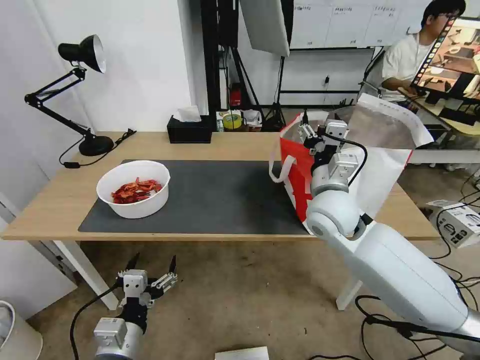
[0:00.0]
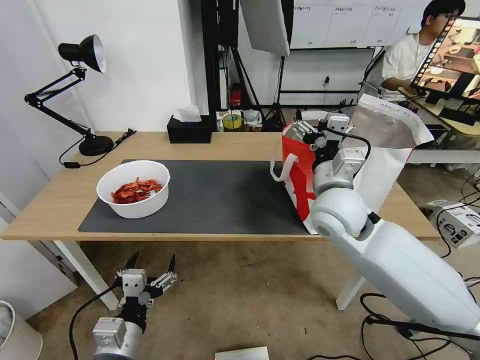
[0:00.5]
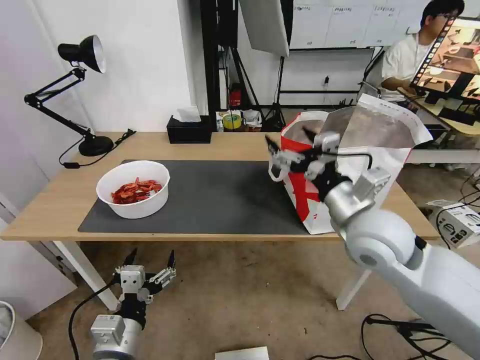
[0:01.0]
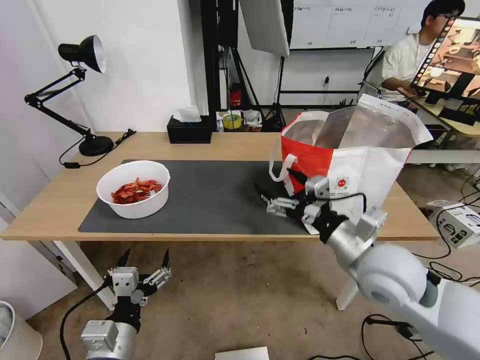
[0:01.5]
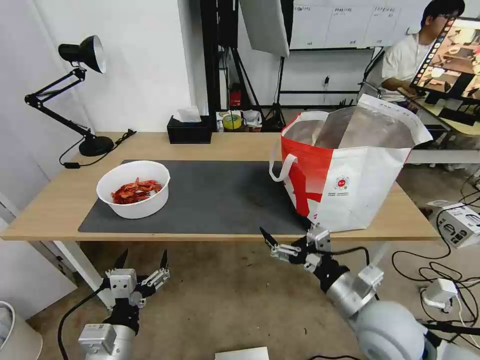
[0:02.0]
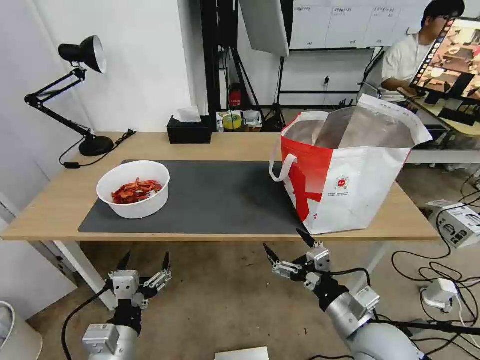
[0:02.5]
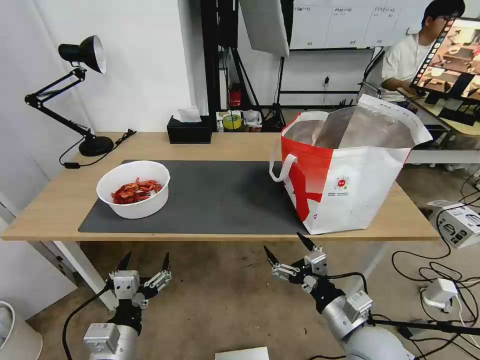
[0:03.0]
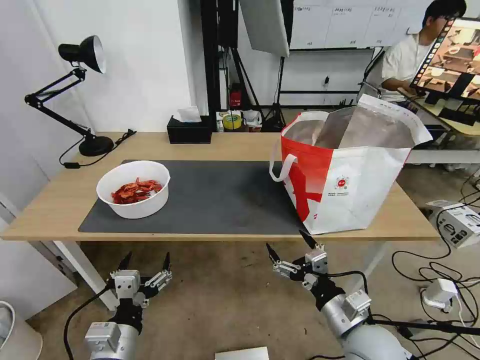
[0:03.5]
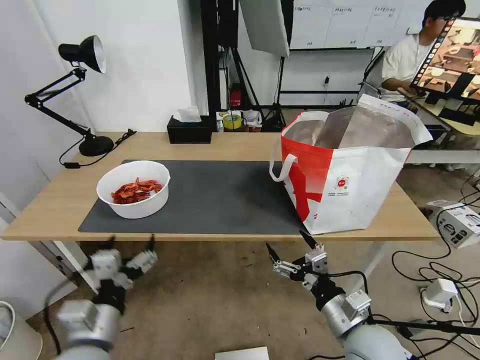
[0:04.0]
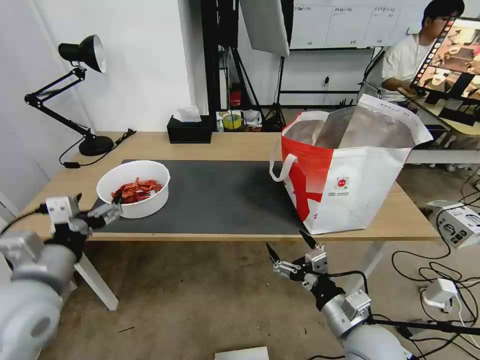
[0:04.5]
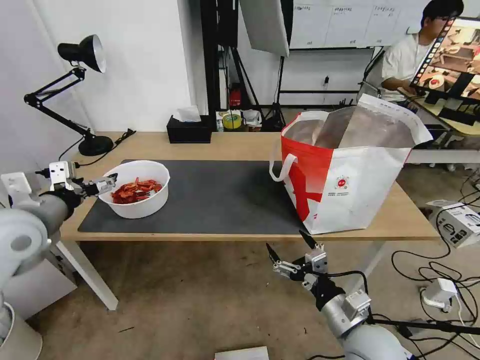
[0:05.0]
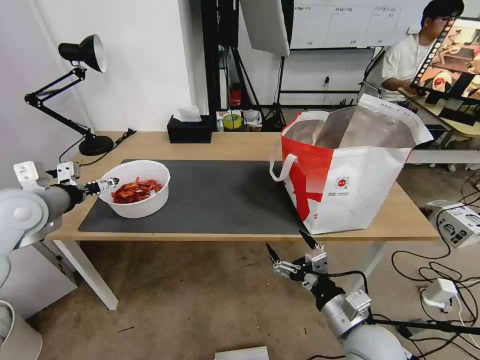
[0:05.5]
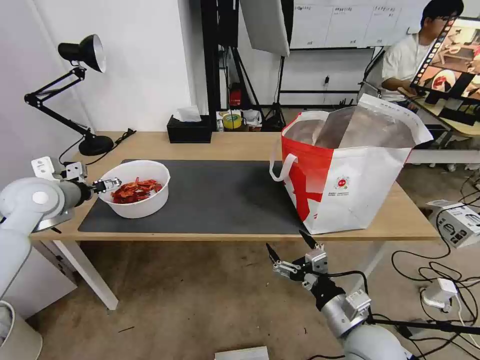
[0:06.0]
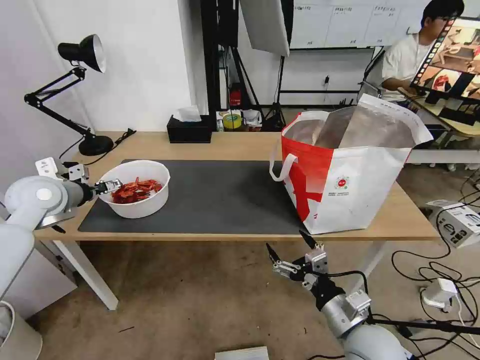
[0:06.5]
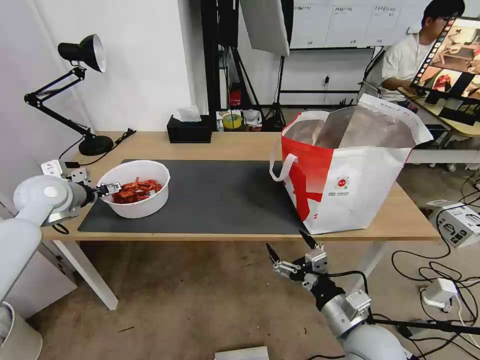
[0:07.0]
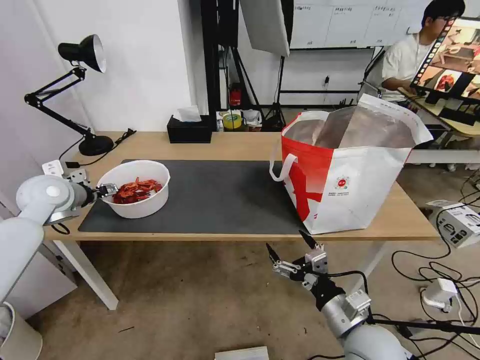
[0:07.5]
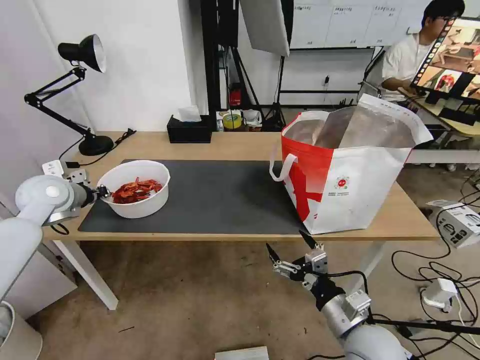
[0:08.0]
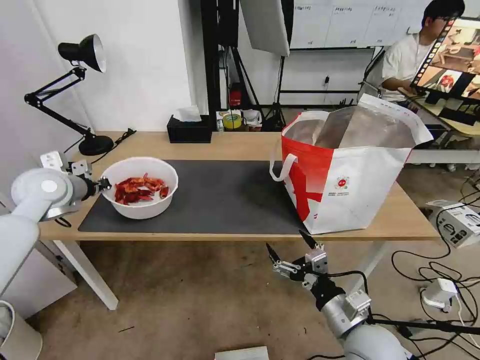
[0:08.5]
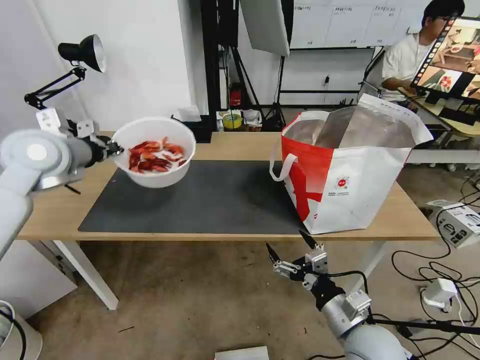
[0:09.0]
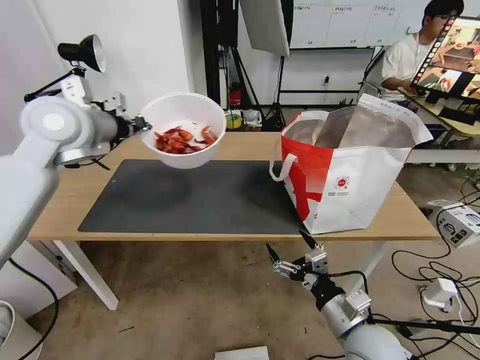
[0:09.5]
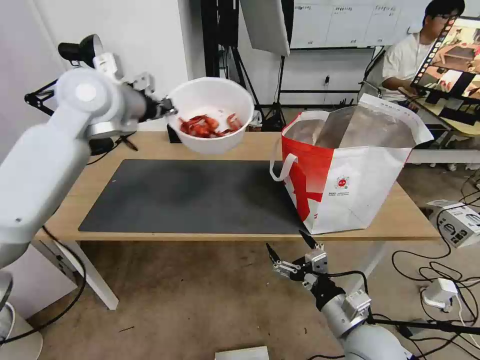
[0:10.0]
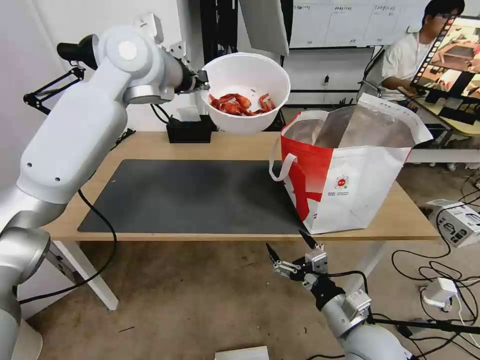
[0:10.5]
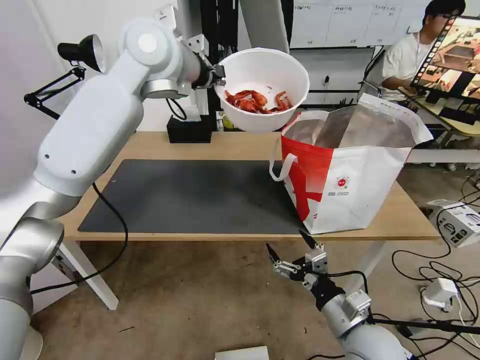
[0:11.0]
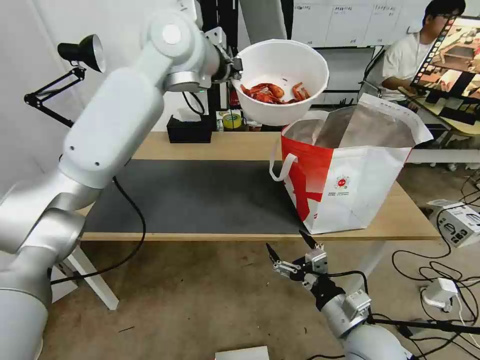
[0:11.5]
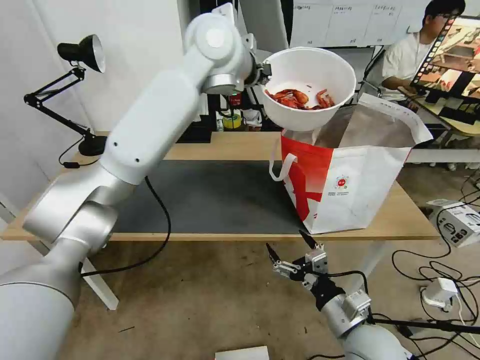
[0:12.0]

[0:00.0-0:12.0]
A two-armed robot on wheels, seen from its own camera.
Task of the whole recording: Pick up the trash from the table and place it into the takeout bag.
0:00.0 to 0:02.0: The right gripper travels backward and downward by approximately 20 cm.
0:02.0 to 0:04.0: The right gripper moves downward, some 5 cm.
0:04.0 to 0:06.0: The left gripper travels forward, to the left and upward by about 35 cm.
0:06.0 to 0:08.0: The left gripper closes up.
0:08.0 to 0:10.0: The left gripper moves upward and to the right, roughly 25 cm.
0:10.0 to 0:12.0: The left gripper travels to the right by about 20 cm.

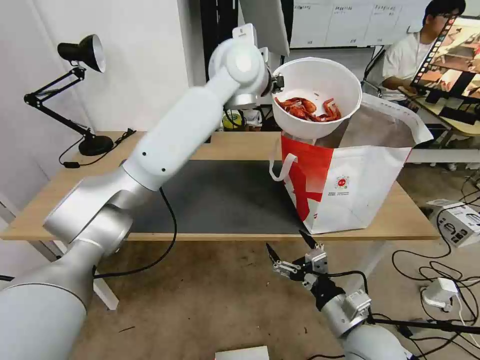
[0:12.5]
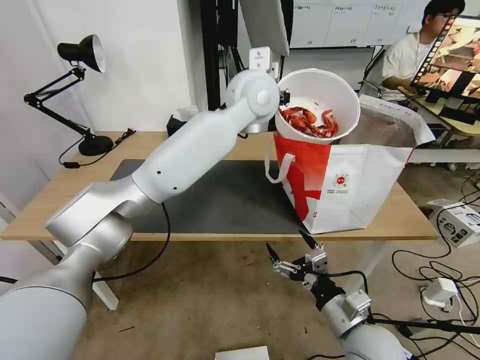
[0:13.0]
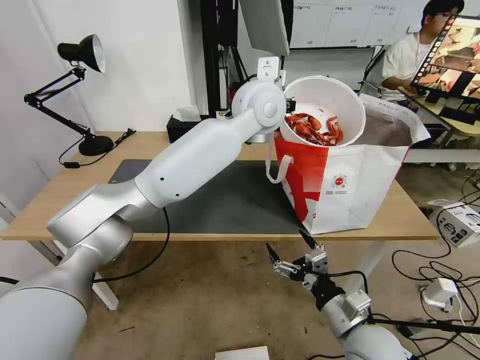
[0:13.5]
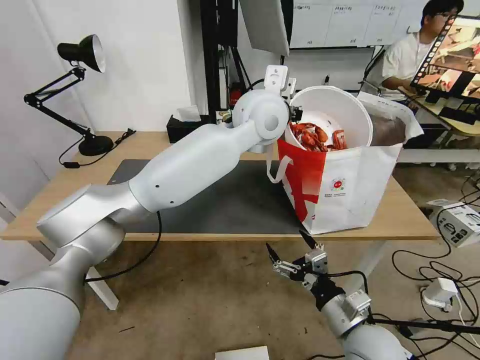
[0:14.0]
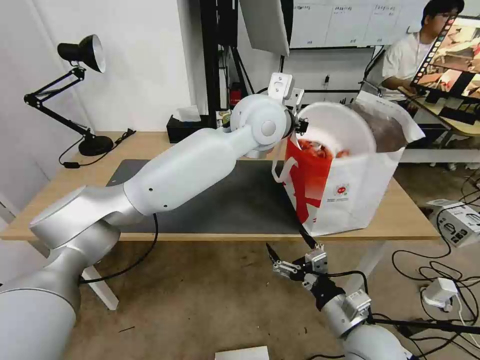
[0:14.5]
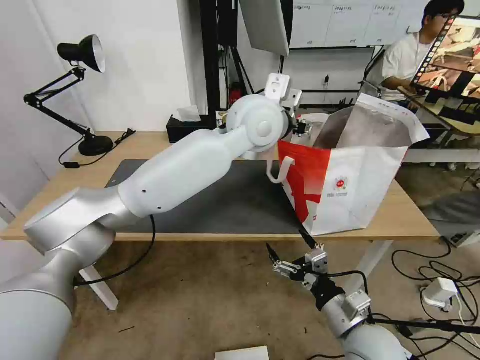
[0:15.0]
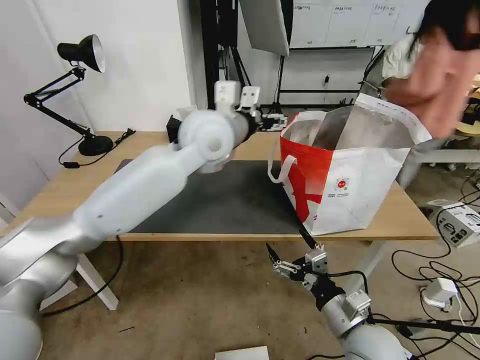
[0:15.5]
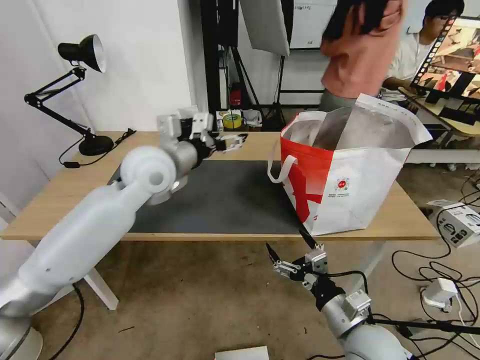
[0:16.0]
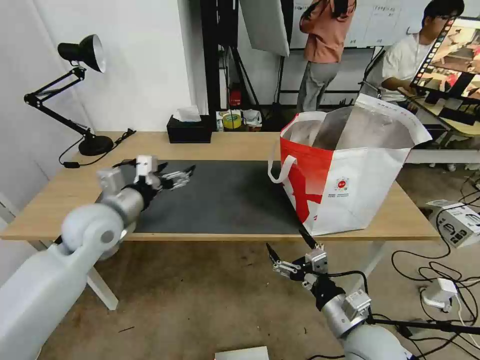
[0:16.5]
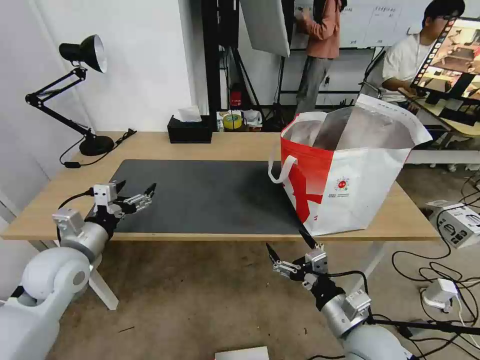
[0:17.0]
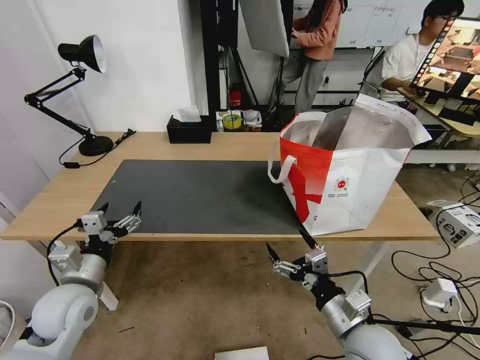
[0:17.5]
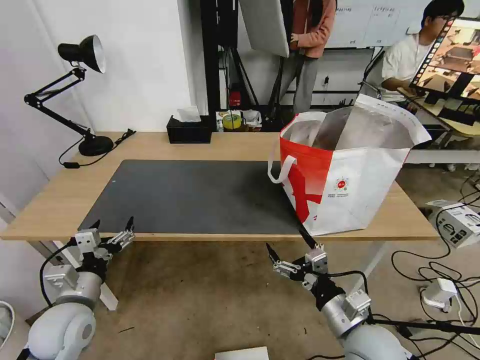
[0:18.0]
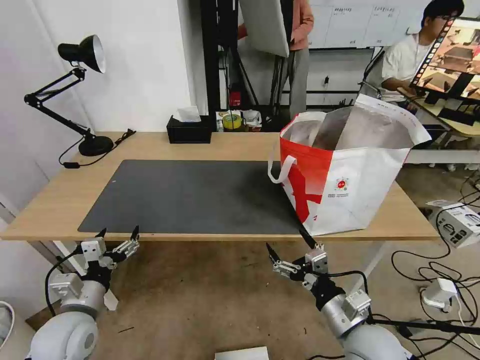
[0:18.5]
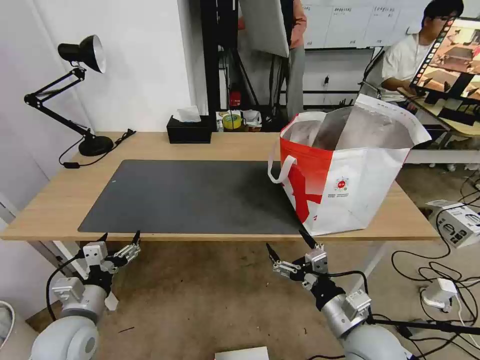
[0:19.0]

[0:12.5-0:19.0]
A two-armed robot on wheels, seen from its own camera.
Task of the whole recording: Pick up the trash from the table and place it into the takeout bag.
0:12.5 to 0:14.5: The left gripper travels downward and backward by approximately 10 cm.
0:14.5 to 0:17.0: The left gripper goes about 50 cm to the left, downward and backward, and opens.
0:17.0 to 0:19.0: The left gripper is displaced downward and backward by approximately 15 cm.

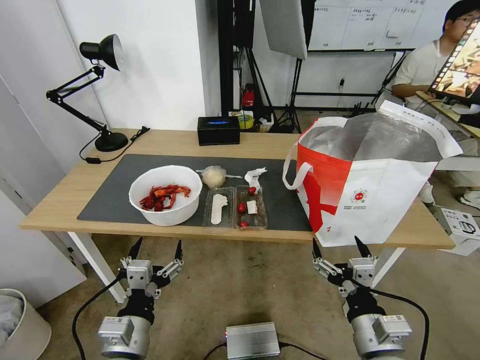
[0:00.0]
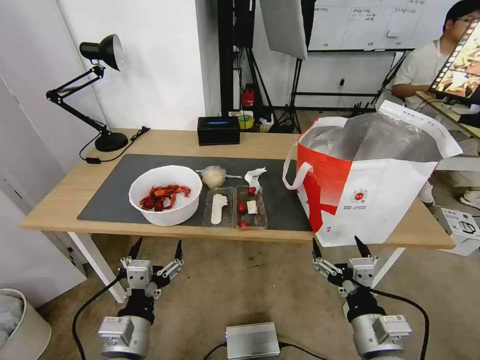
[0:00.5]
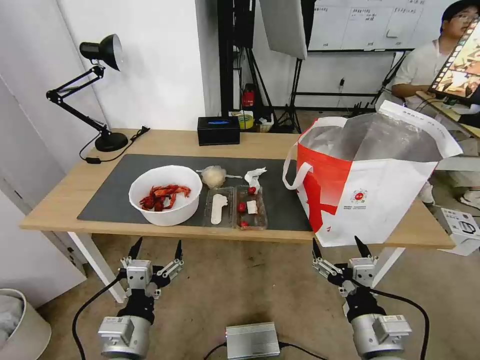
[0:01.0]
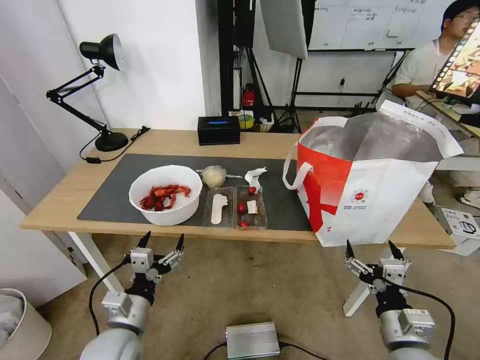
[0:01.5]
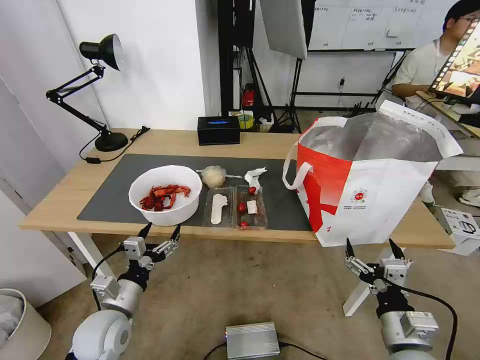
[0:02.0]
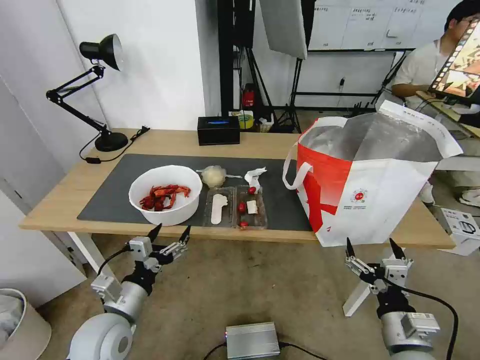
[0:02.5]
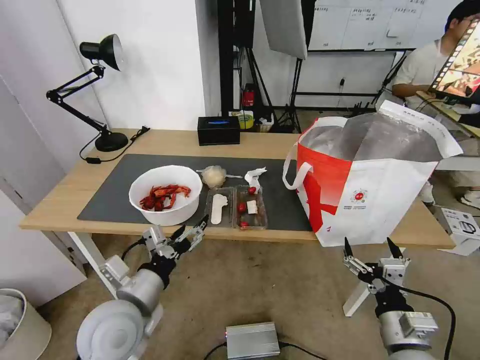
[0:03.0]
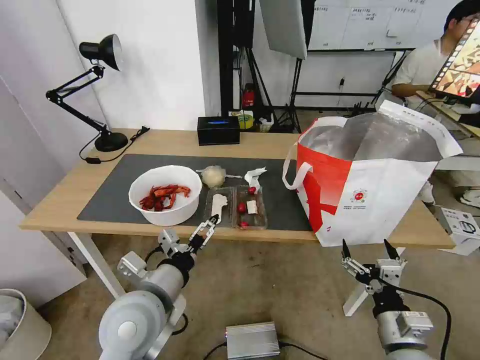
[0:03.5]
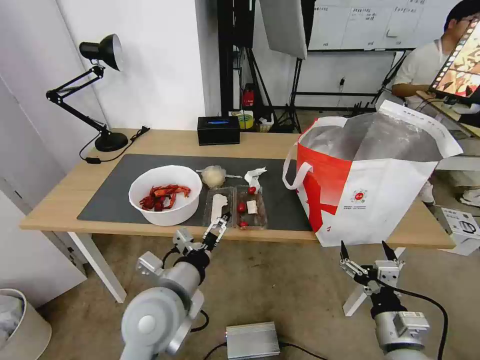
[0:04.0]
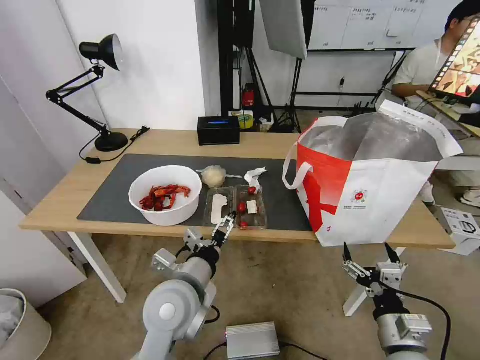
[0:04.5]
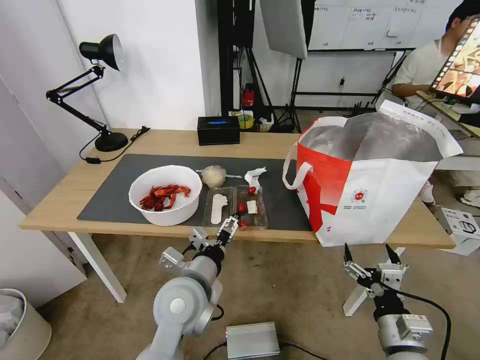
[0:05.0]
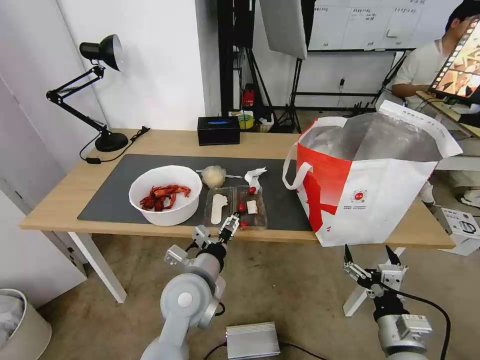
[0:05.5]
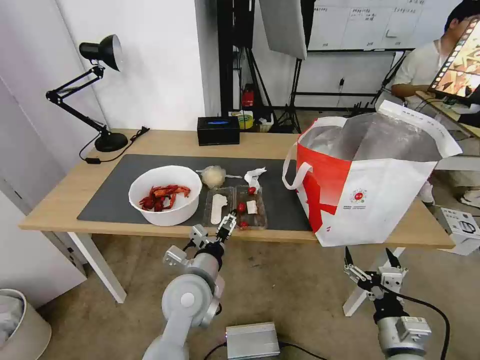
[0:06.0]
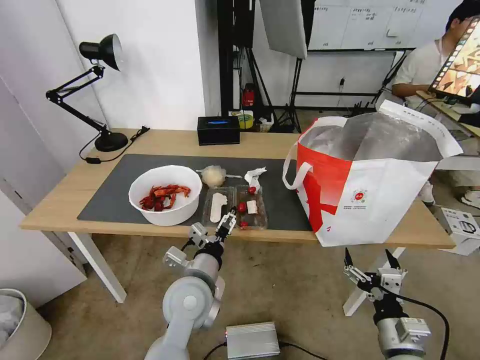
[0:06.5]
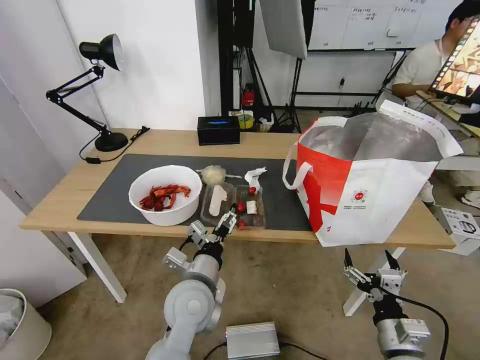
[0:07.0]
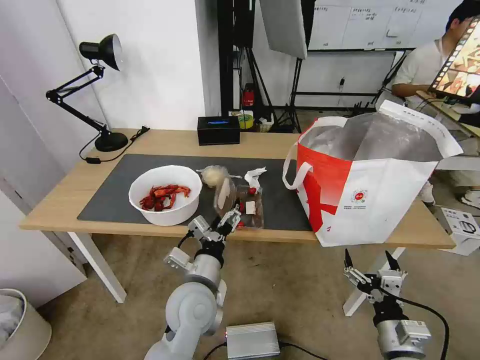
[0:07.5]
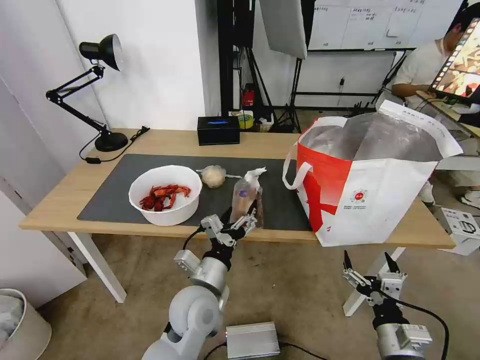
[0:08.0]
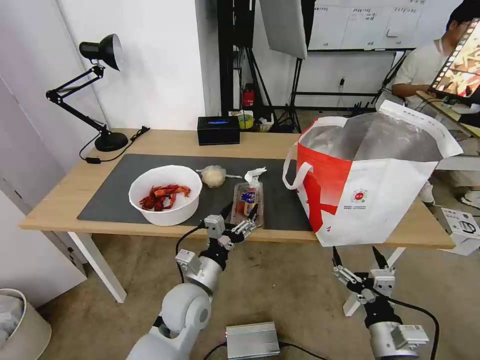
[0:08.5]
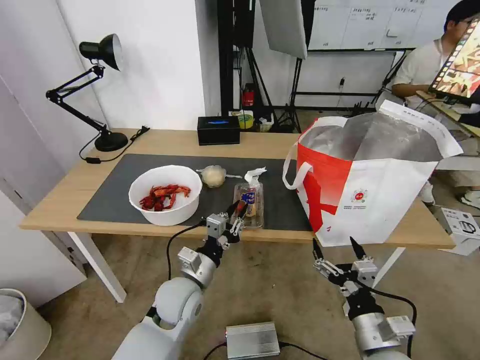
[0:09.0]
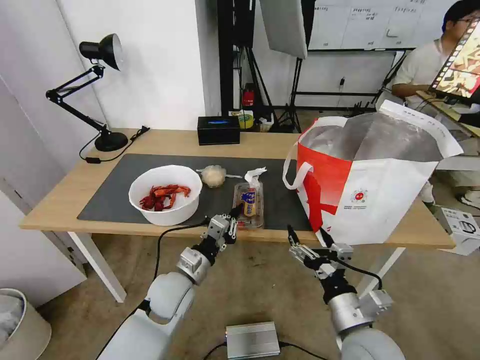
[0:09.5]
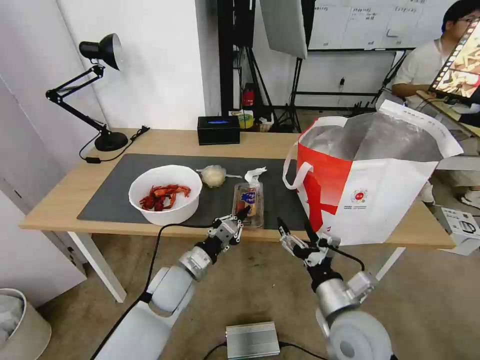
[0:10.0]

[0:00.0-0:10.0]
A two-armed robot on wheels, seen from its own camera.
Task of the whole recording: Pick up the trash from the table and place it into the takeout bag.
0:02.0 to 0:04.0: The left gripper moves to the right and upward, some 20 cm.
0:04.0 to 0:06.0: The left gripper is displaced downward by roughly 5 cm.
0:08.0 to 0:10.0: The right gripper shifts some 15 cm to the left, forward and upward. The left gripper is displaced to the left and forward by about 10 cm, and closes.
